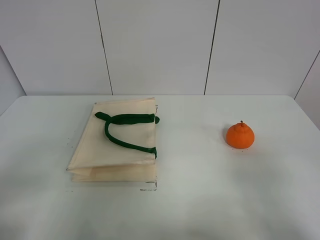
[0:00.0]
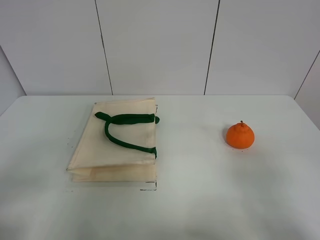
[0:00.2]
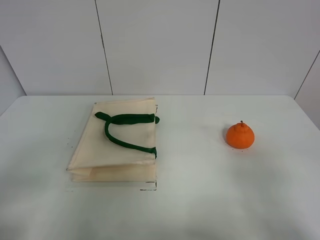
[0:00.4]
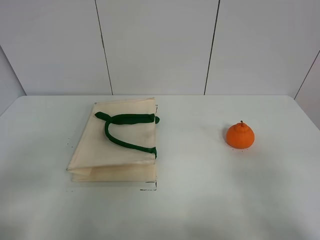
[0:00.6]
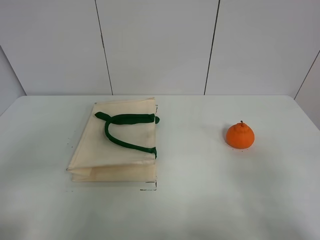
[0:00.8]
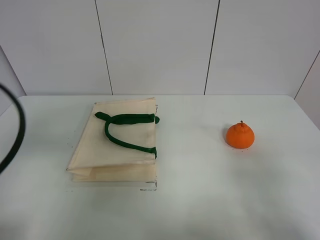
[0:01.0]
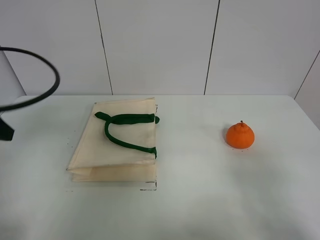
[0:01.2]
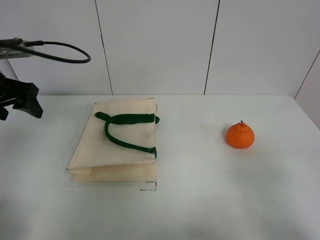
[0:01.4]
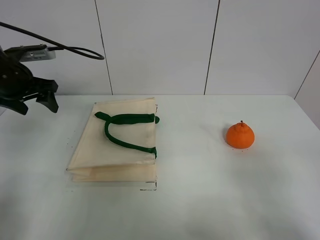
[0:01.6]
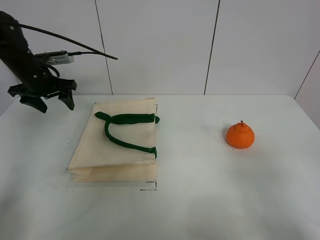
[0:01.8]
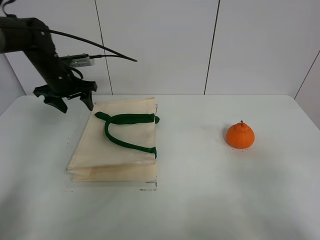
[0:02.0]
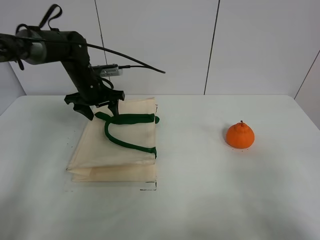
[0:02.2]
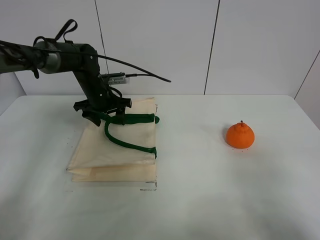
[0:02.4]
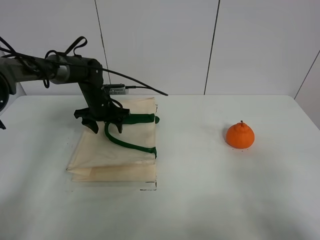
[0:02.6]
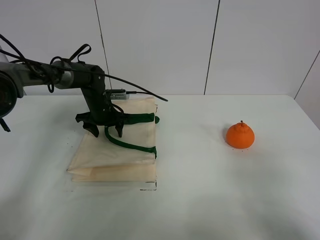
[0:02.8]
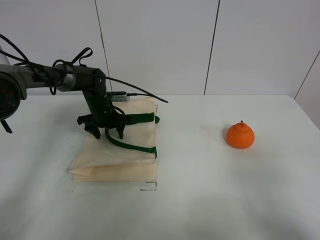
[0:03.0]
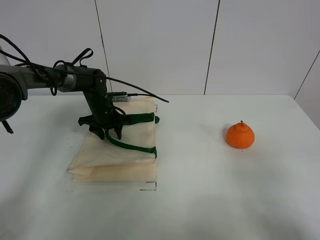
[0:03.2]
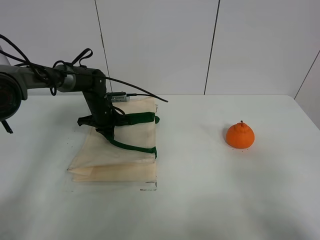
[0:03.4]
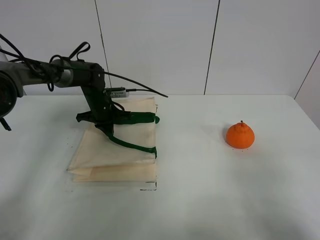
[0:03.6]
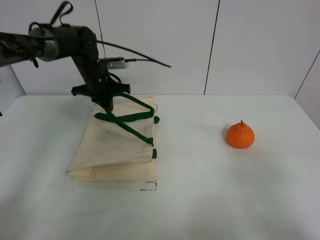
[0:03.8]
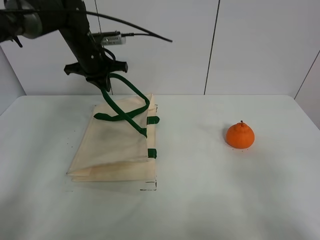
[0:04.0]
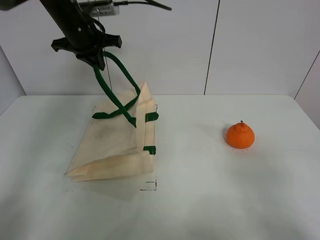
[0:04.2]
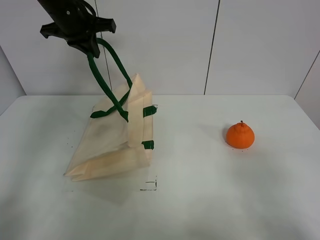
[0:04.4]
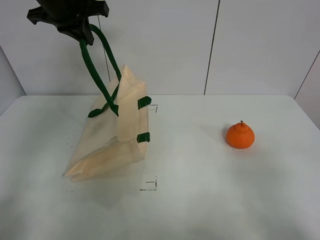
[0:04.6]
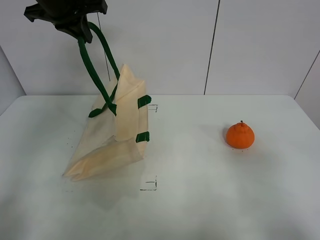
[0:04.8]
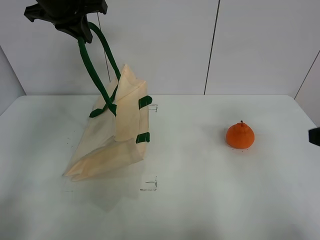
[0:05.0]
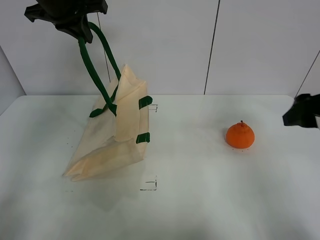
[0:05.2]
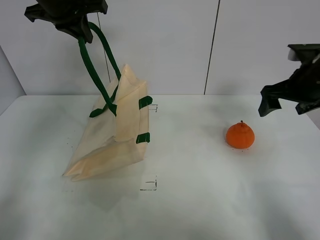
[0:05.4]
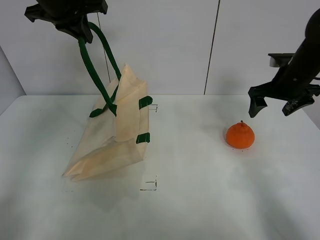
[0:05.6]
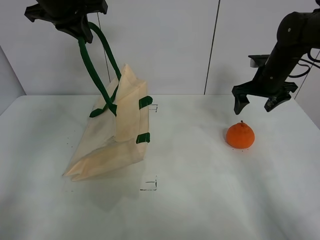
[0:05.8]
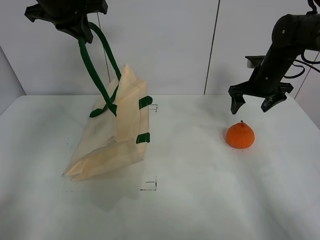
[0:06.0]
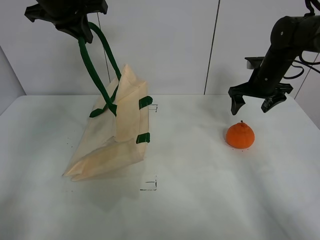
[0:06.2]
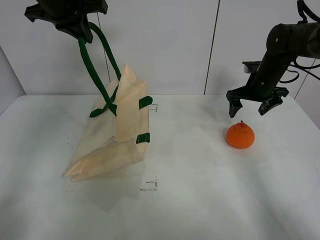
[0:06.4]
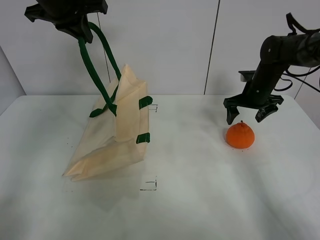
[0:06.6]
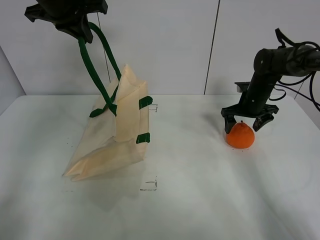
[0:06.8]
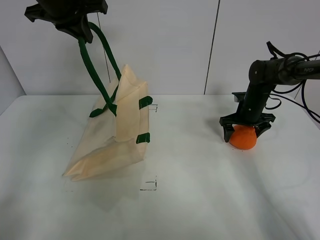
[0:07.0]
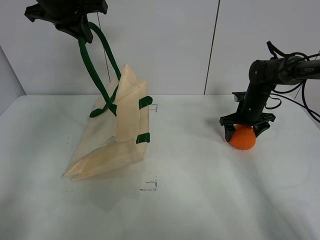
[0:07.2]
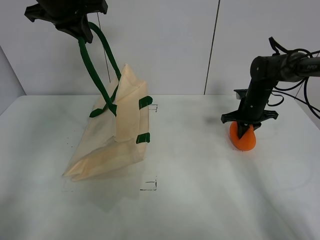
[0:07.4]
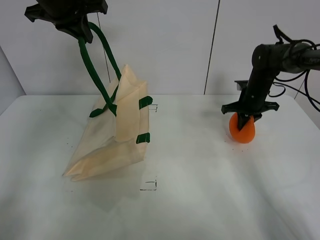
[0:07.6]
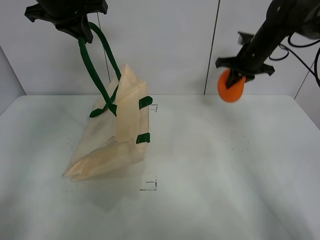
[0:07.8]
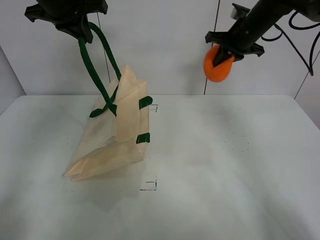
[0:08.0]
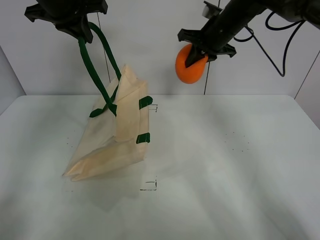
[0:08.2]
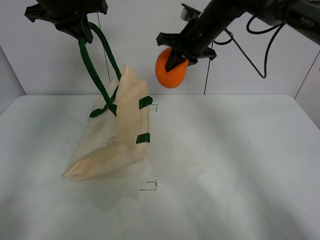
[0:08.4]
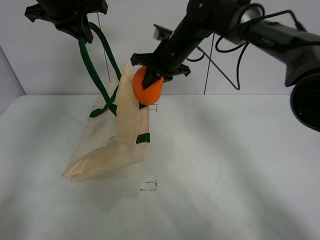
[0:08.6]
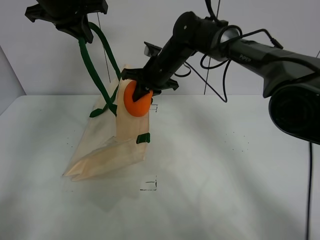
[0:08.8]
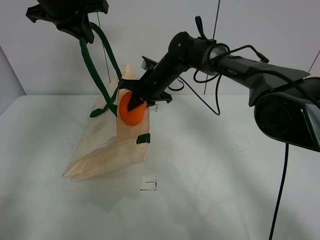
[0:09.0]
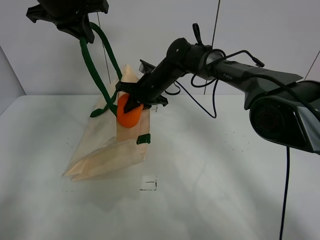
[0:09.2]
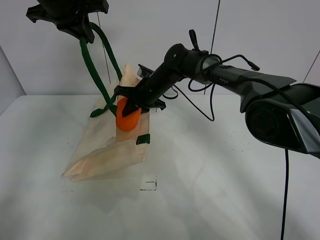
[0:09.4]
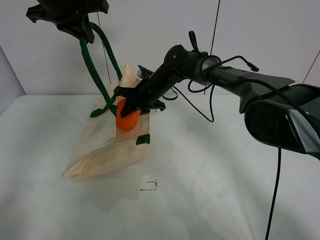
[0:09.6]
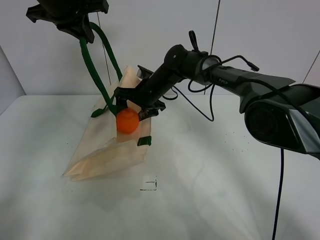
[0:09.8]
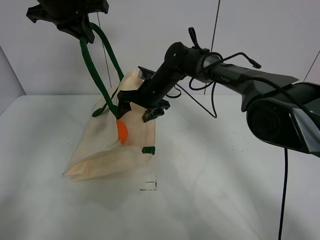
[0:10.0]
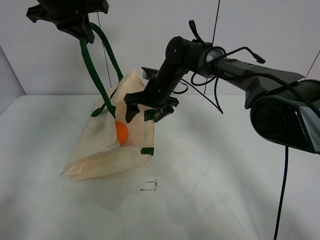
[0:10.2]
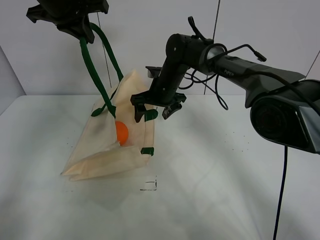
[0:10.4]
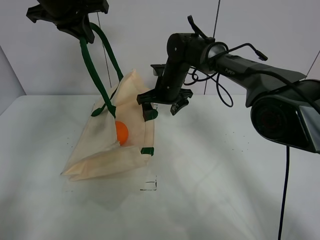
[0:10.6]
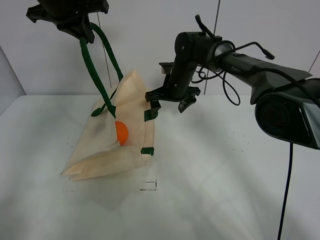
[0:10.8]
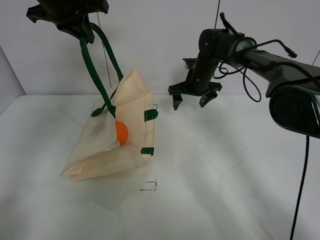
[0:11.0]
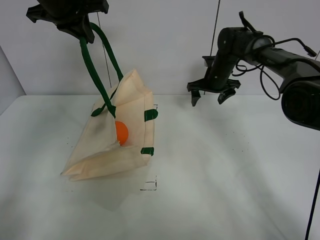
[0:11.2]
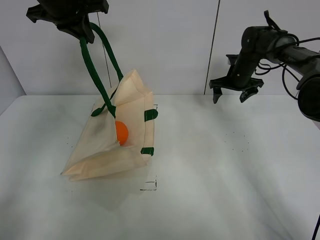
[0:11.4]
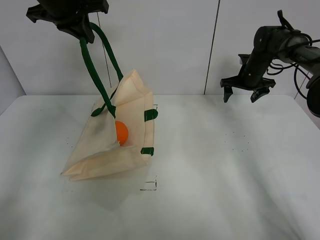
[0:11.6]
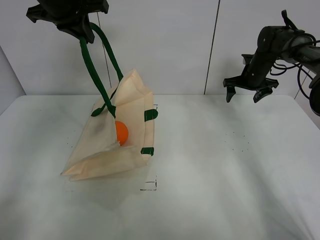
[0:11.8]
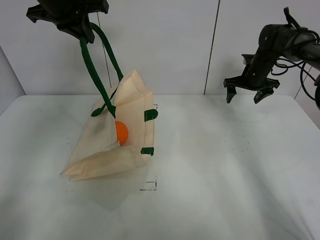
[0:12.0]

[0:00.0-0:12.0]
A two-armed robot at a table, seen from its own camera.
Task of the whole recording: open the white linen bag and put the orange in the bag.
Step, 0.0 to 4.8 s: Lift the handbag with left gripper.
Step, 5.0 to 7.4 s: Grasp the orange with right gripper.
Step, 7.6 to 10.4 s: Place the orange in the handbag with right gripper.
0.0 to 1.6 s: The left gripper travels forward by approximately 35 cm.
1.6 to 3.0 s: The left gripper goes about 25 cm downward, to the right and forward.
3.0 to 4.4 s: The left gripper moves upward, roughly 25 cm, and closes.
4.4 to 6.0 s: The right gripper travels forward by some 40 cm.
6.0 to 7.6 s: The right gripper goes about 5 cm downward, and closes.
7.6 to 9.0 s: The right gripper goes approximately 25 cm to the left.
9.0 to 10.4 s: The right gripper opens.
10.4 to 12.0 s: The right gripper moves to the right, some 25 cm.

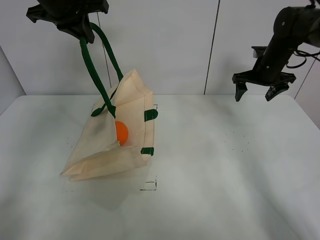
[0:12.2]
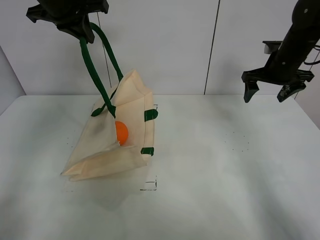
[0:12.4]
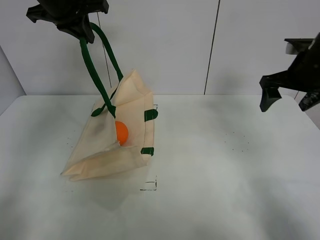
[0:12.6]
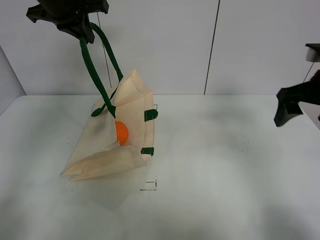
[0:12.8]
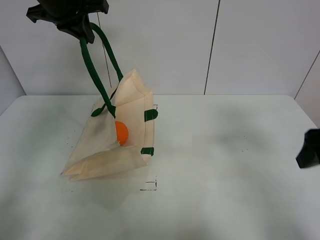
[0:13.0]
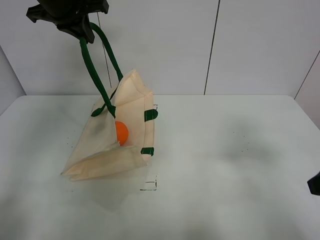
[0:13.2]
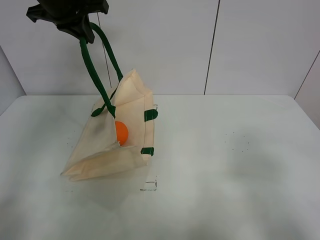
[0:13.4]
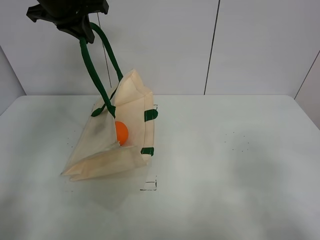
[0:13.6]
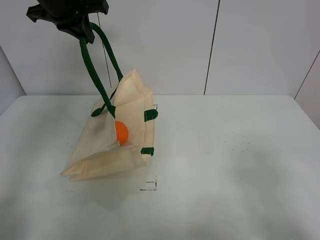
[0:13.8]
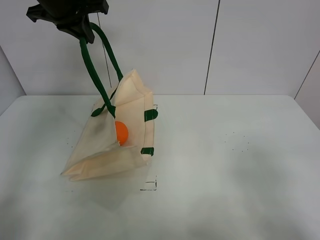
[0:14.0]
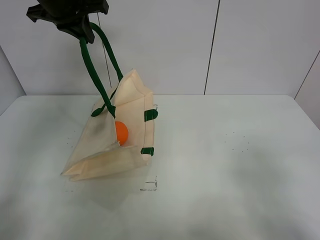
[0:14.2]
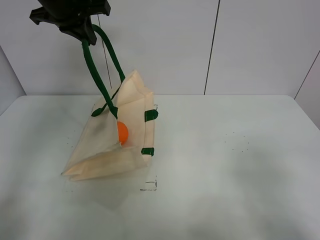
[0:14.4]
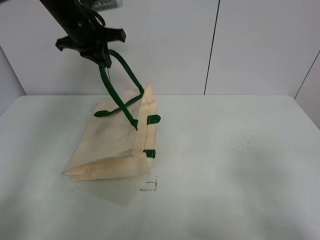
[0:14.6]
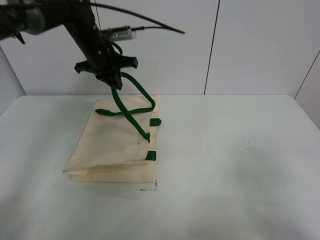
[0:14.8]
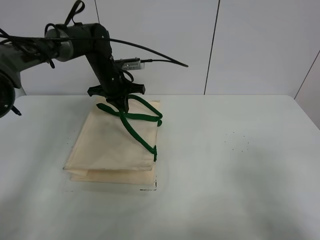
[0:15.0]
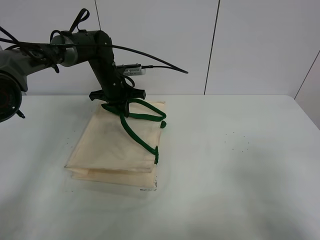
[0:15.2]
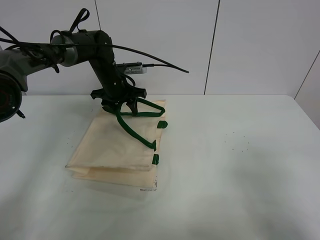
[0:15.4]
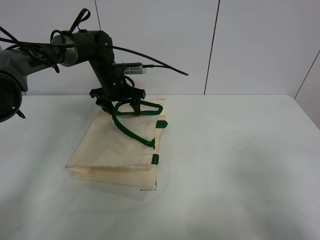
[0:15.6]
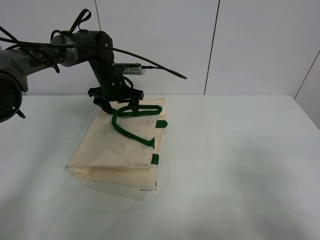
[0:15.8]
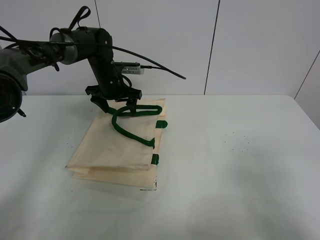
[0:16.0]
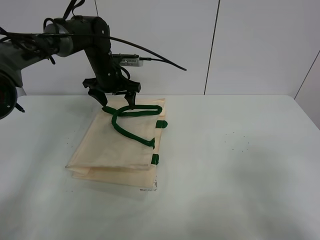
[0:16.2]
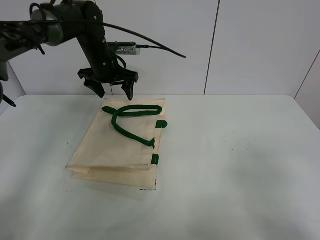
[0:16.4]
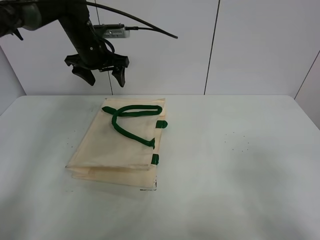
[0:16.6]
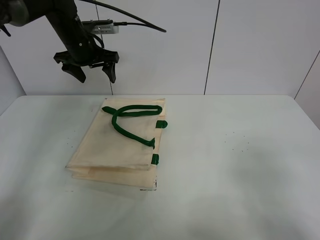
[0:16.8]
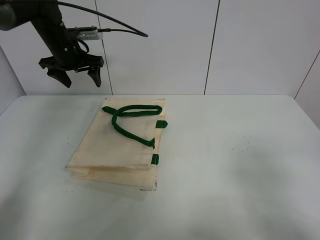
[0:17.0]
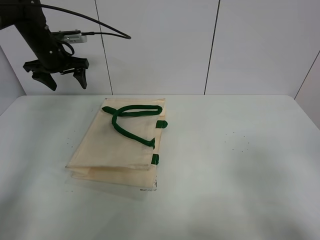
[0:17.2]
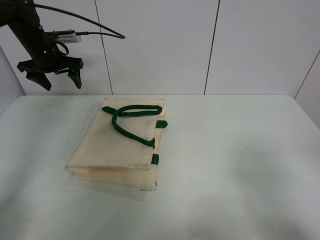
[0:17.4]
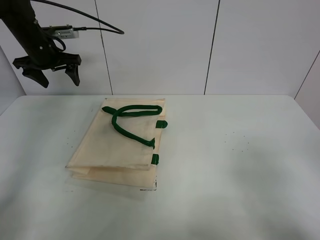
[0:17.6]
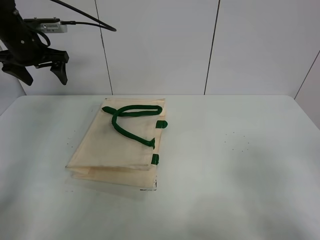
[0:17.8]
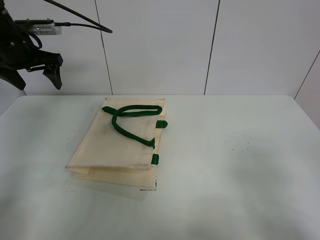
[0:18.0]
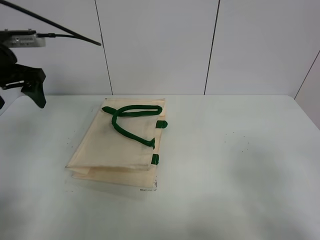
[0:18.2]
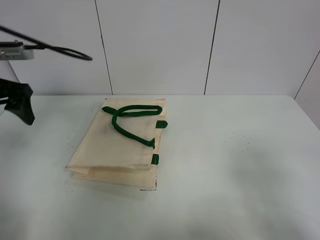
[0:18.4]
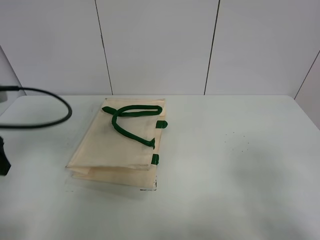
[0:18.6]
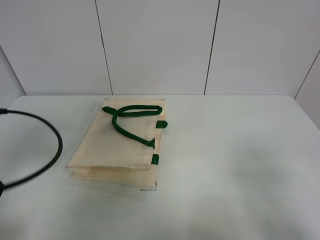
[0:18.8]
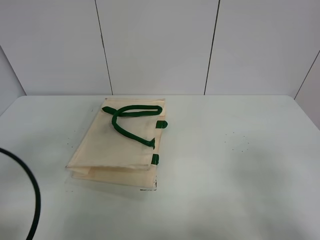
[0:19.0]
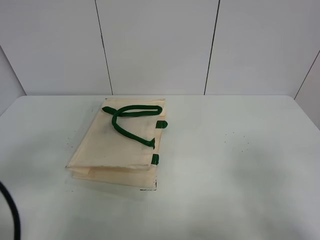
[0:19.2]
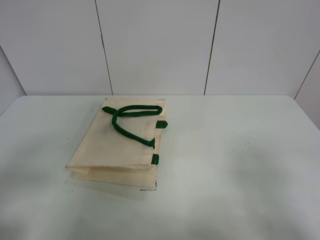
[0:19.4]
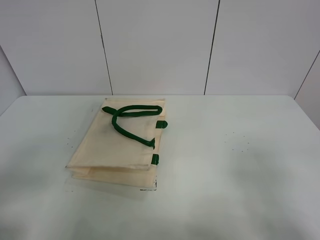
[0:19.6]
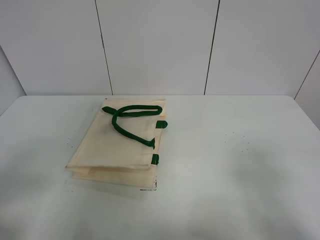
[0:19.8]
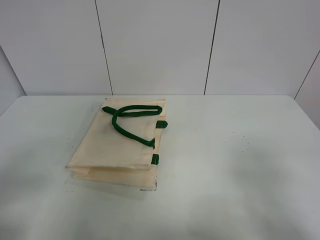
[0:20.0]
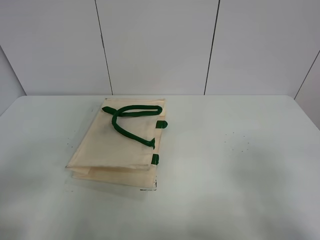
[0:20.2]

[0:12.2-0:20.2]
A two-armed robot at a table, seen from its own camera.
Task of the whole recording: open the white linen bag and put the orange in the bag.
Step, 12.2 to 16.2 s: Put down the handbag with left gripper.
12.2 to 13.8 s: The right gripper travels backward by approximately 50 cm.
13.8 to 15.4 s: The left gripper moves downward, approximately 20 cm, and opens up.
15.4 to 17.0 s: The left gripper goes roughly 15 cm to the left and upward.
17.0 to 18.6 s: The left gripper moves backward, roughly 30 cm.
18.6 to 20.2 s: The left gripper moves backward, approximately 15 cm.

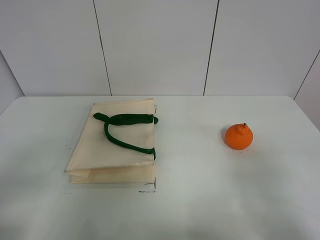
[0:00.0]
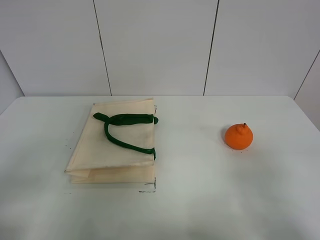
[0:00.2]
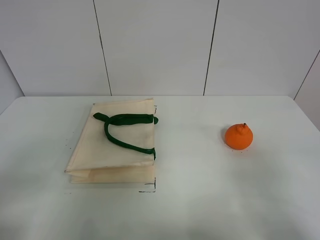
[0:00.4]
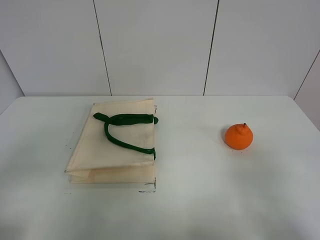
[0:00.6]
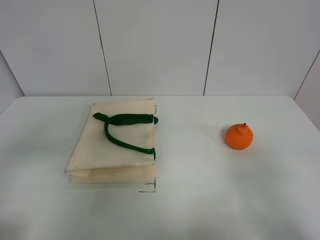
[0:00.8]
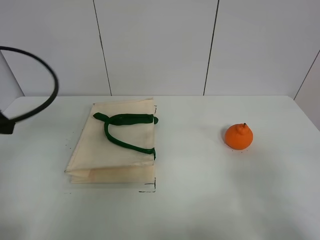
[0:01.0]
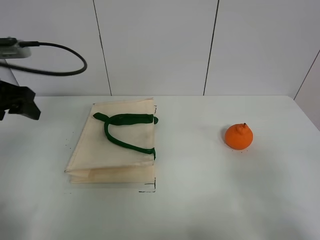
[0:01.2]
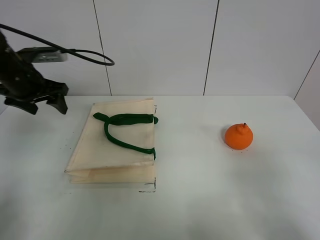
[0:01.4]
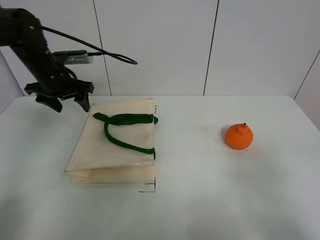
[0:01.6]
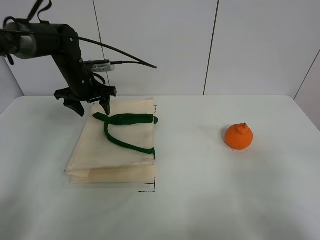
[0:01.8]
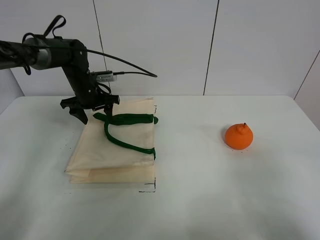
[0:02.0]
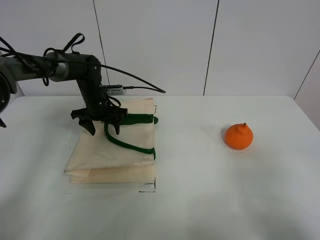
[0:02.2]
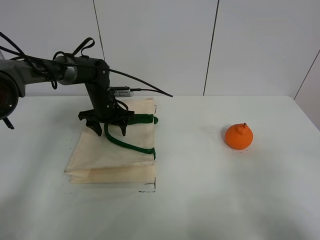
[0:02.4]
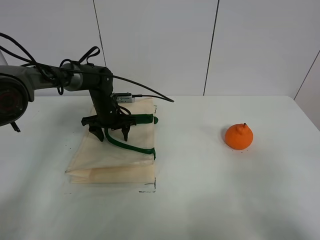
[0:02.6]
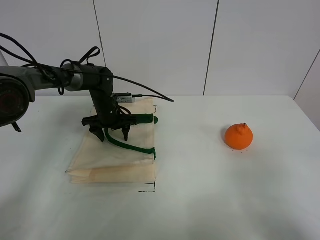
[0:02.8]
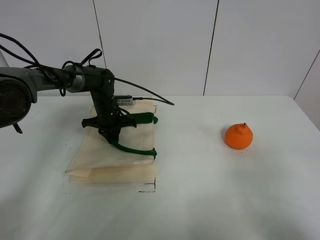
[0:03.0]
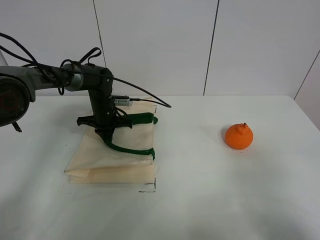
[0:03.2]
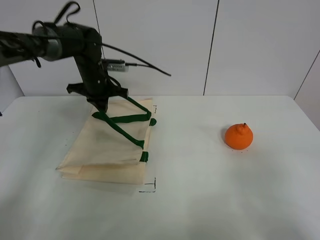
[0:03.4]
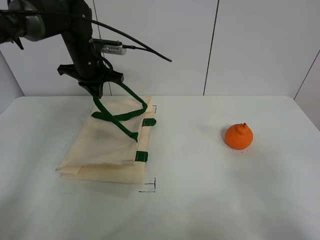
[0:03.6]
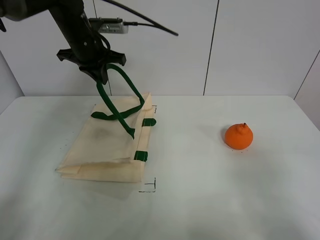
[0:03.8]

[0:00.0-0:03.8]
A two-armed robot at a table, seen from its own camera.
Task of the whole recording: open the white linen bag and put the orange in the bag.
0.0 to 1.2 s: The left gripper goes about 30 cm forward.
1.2 to 2.6 s: The left gripper is displaced downward, forward and to the right by about 30 cm.
2.6 to 3.8 s: The left gripper heads upward, covering roughly 20 cm, and closes its fingers.
